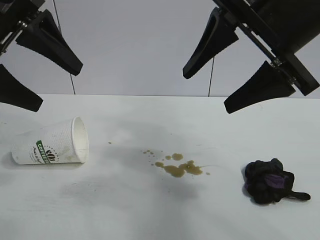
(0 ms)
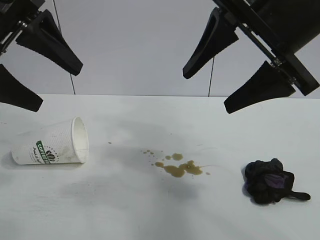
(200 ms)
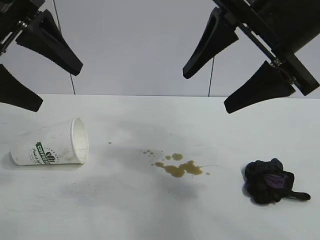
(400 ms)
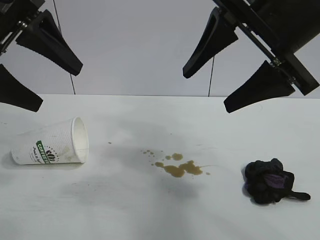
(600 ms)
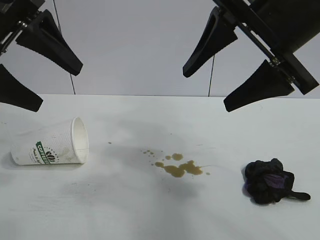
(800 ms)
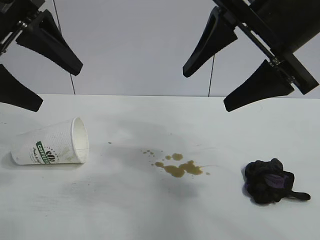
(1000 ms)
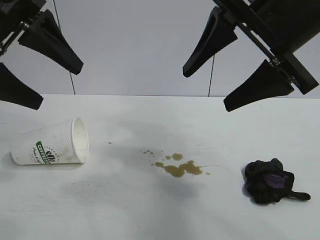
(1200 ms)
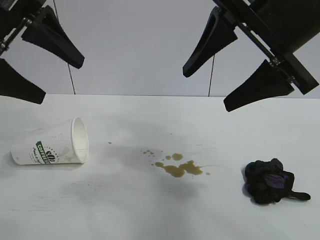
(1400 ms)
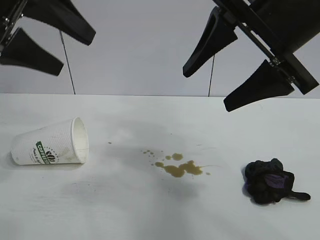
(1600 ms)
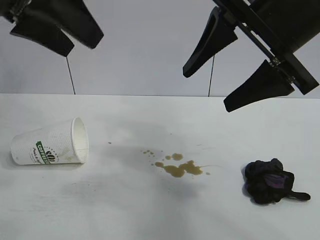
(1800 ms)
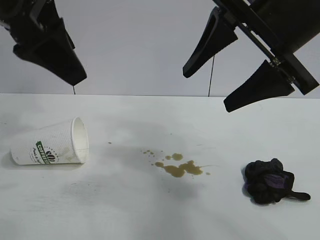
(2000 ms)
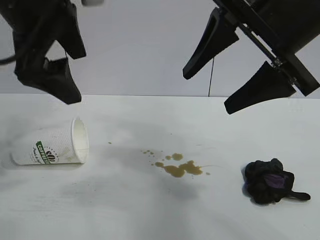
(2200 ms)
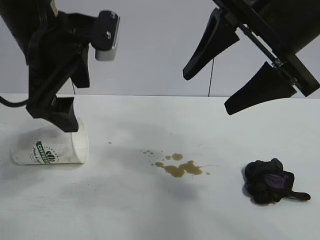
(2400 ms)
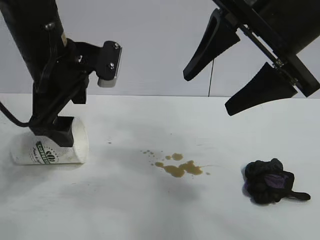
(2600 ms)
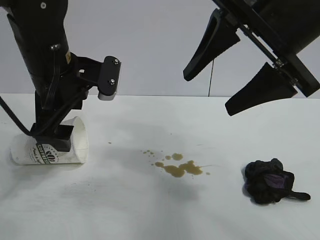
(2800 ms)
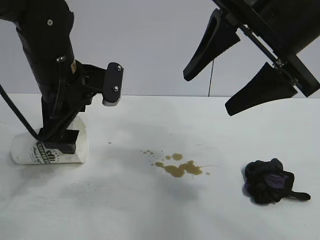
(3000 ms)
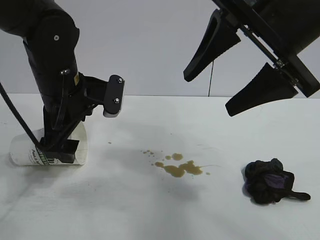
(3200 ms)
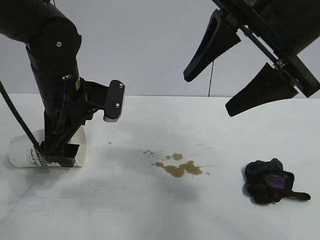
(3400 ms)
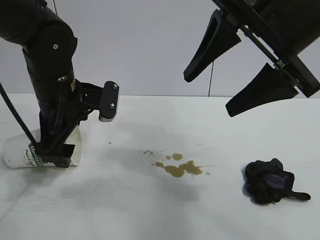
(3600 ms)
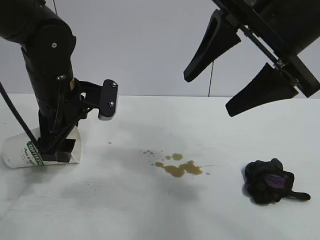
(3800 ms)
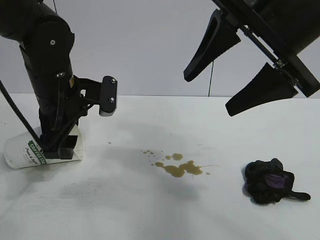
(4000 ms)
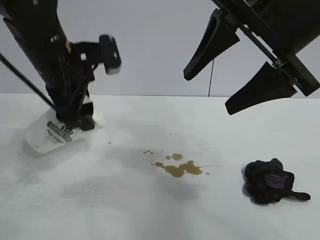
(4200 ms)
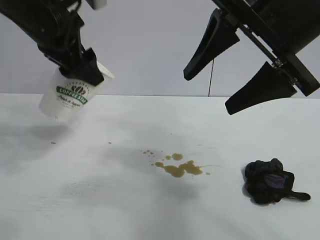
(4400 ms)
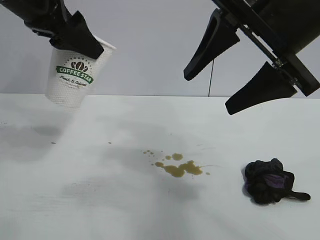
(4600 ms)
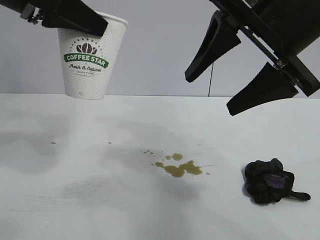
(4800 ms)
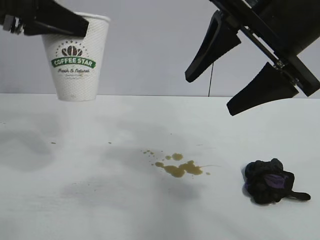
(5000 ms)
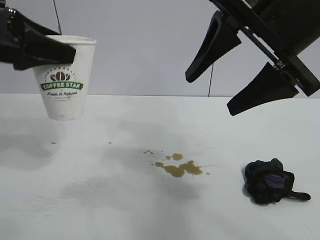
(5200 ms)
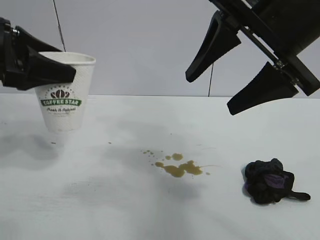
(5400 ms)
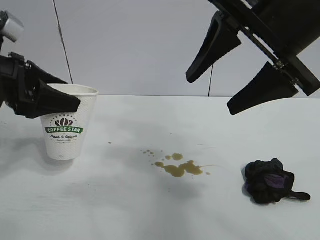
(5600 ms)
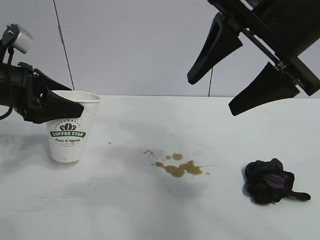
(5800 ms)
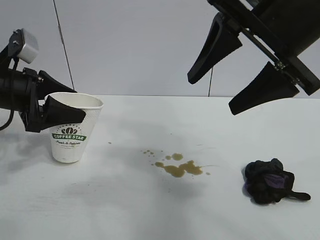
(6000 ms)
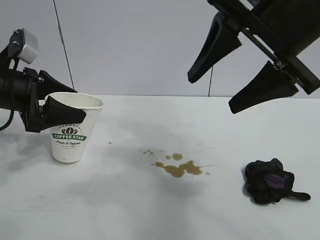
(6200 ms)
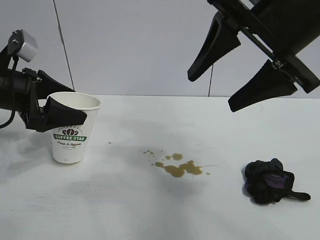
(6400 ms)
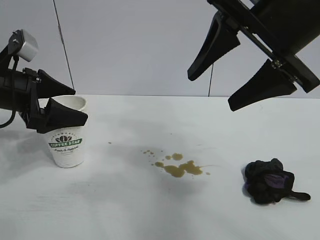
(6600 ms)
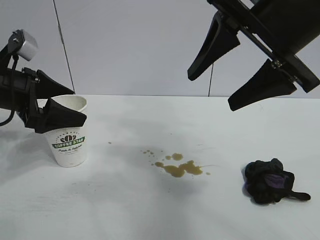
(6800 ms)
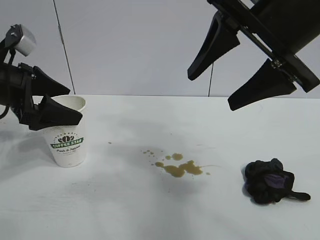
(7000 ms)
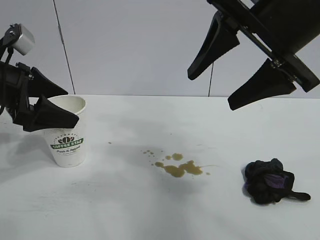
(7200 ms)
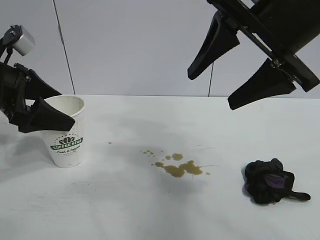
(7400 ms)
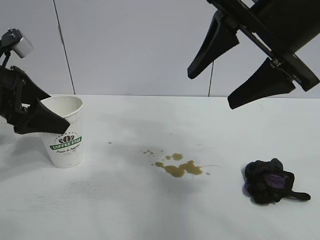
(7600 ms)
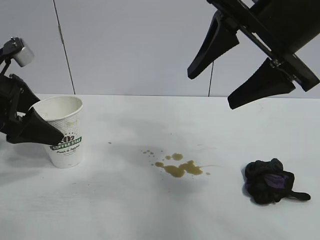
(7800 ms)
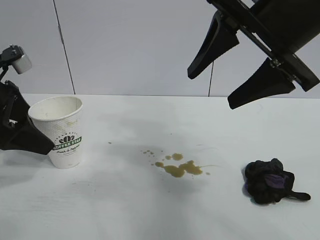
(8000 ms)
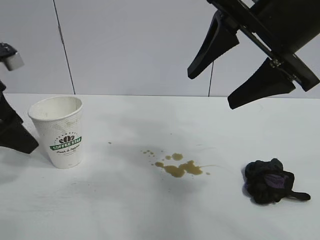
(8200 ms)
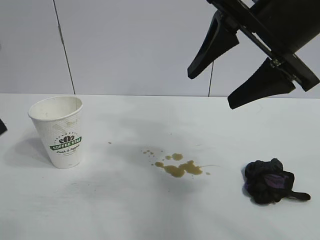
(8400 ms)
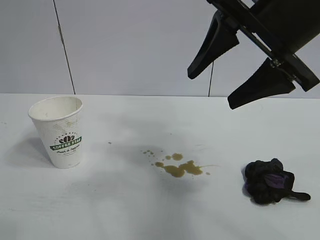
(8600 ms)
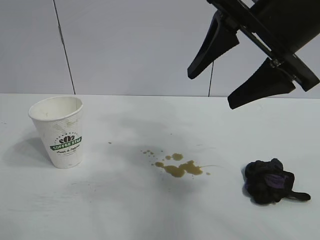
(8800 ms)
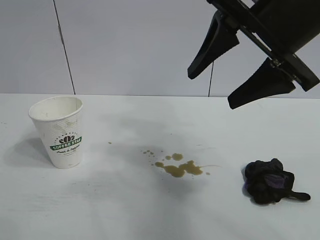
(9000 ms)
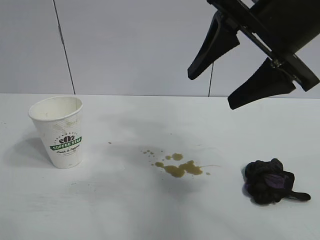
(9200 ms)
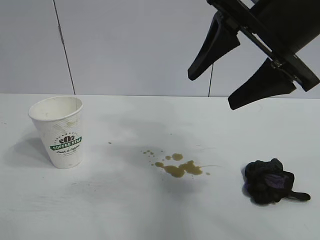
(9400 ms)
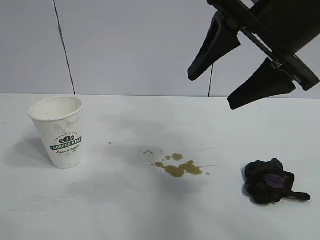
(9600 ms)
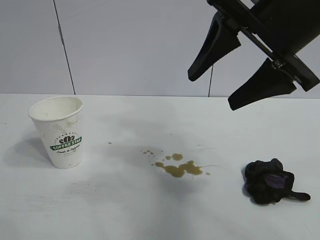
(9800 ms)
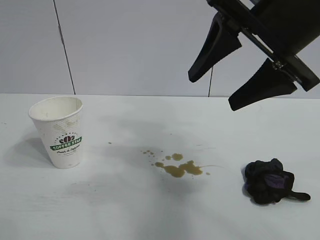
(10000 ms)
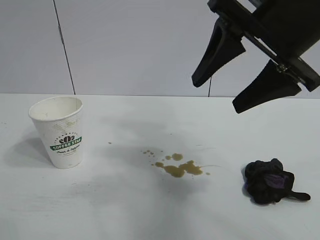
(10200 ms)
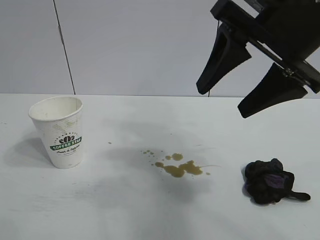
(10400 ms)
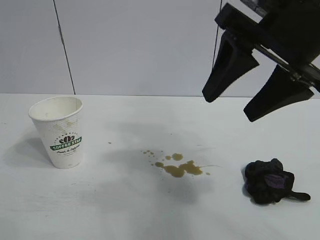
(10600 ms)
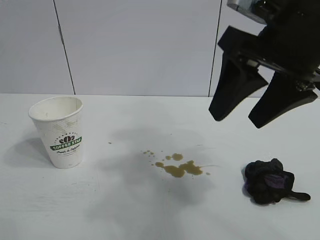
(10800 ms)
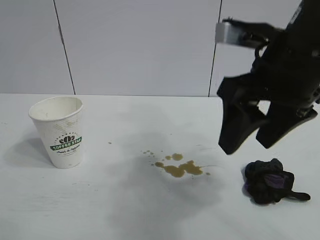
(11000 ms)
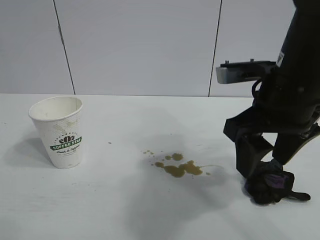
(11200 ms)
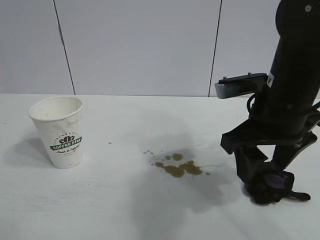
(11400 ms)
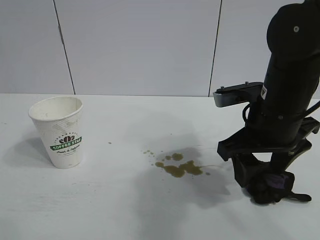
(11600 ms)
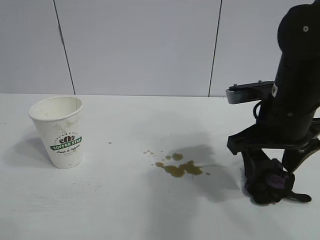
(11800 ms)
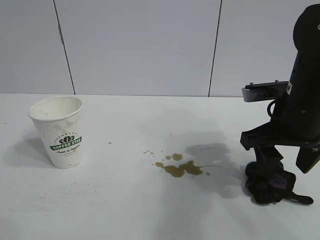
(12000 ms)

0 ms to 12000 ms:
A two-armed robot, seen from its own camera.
Task of the whole recording: the left gripper pick up the fallen cup and place it upright, the right gripper grasp the black rag and wipe the stain on the table, the right gripper put the black rag back in its original position.
Step, 600 ms to 3800 ms: Grasp the paper cup with left gripper.
Step, 4000 ms to 6600 ms: Stand the paper cup upright with left gripper.

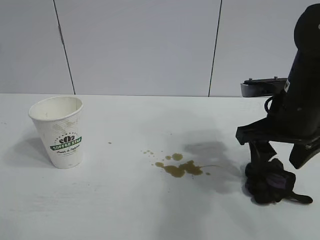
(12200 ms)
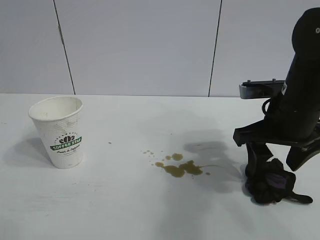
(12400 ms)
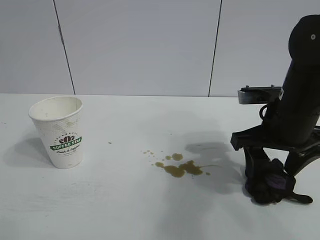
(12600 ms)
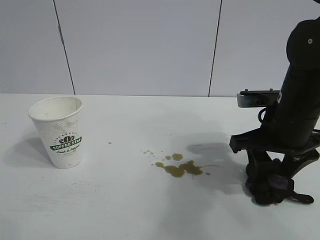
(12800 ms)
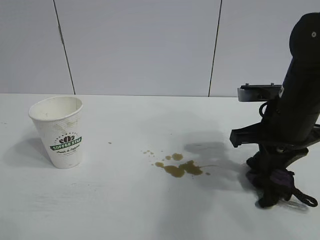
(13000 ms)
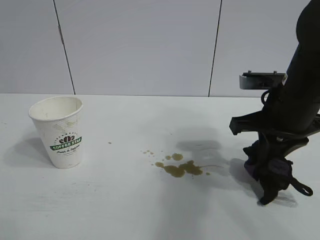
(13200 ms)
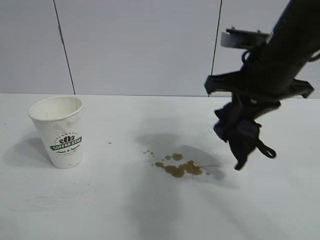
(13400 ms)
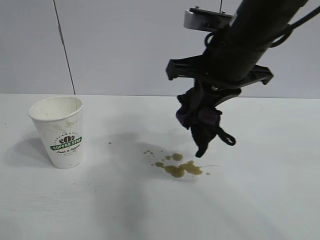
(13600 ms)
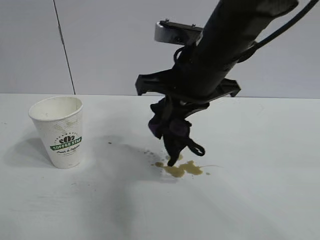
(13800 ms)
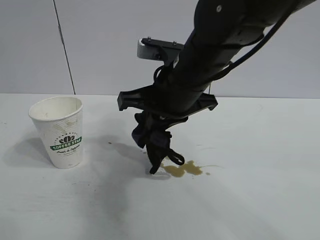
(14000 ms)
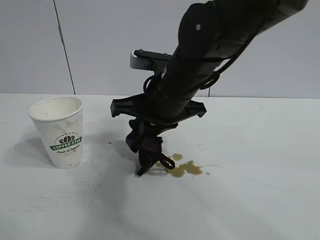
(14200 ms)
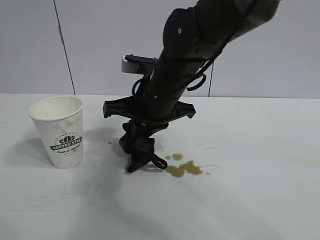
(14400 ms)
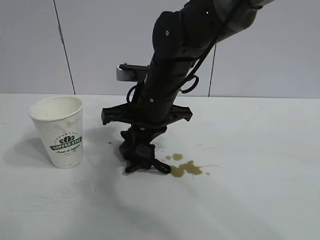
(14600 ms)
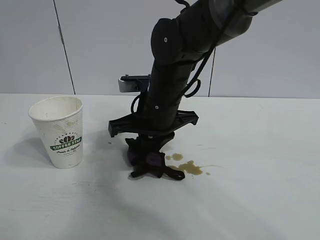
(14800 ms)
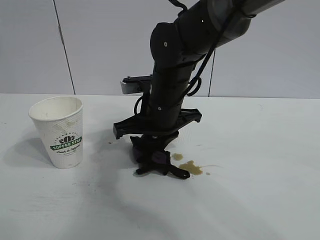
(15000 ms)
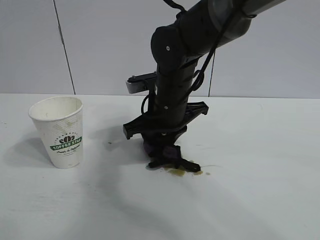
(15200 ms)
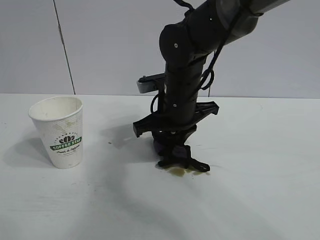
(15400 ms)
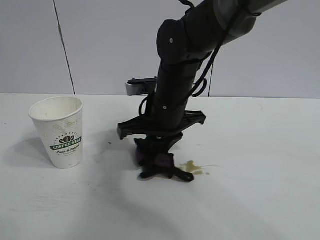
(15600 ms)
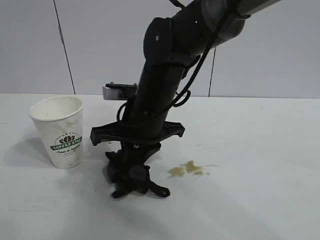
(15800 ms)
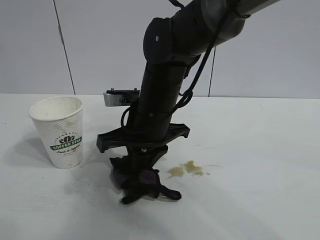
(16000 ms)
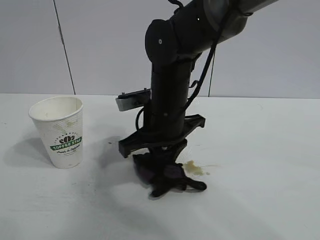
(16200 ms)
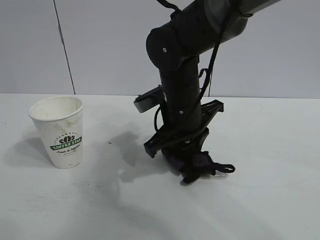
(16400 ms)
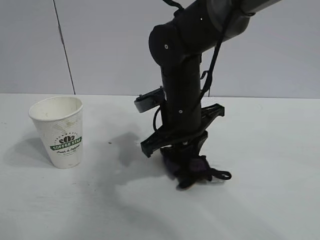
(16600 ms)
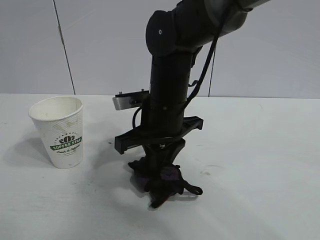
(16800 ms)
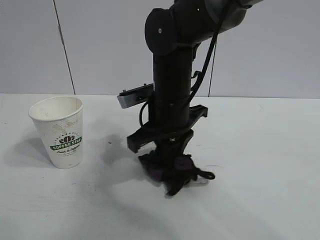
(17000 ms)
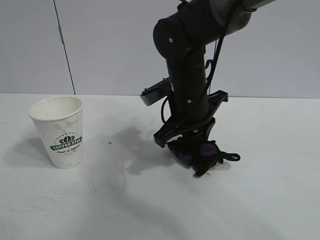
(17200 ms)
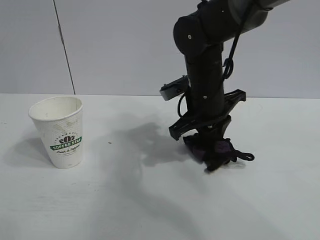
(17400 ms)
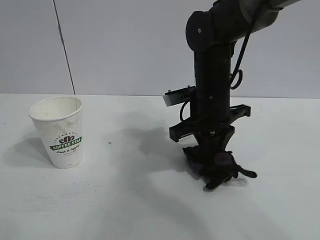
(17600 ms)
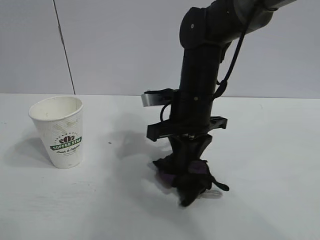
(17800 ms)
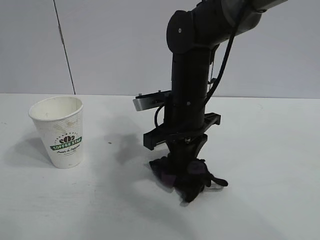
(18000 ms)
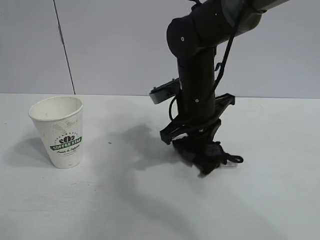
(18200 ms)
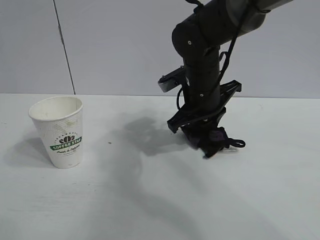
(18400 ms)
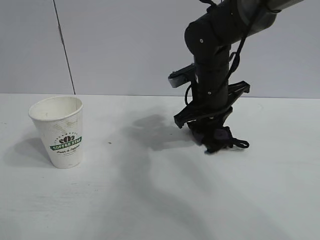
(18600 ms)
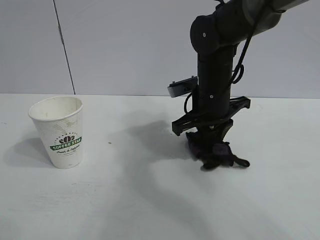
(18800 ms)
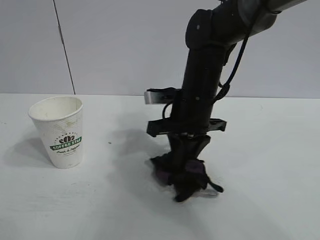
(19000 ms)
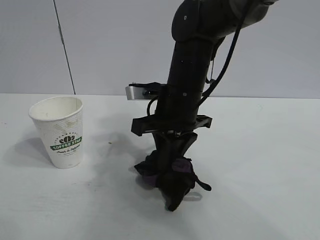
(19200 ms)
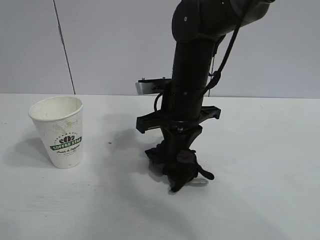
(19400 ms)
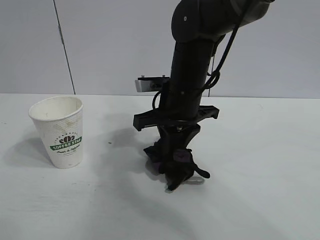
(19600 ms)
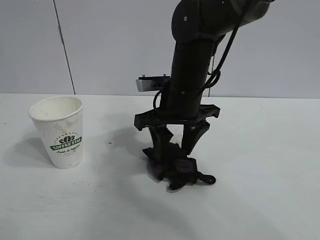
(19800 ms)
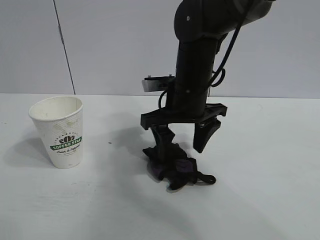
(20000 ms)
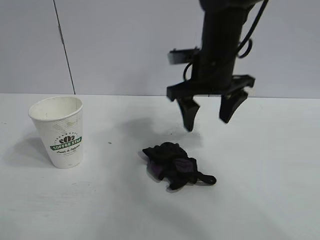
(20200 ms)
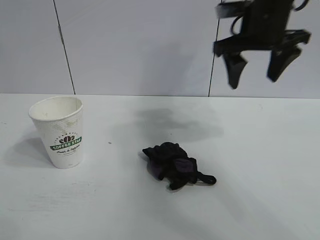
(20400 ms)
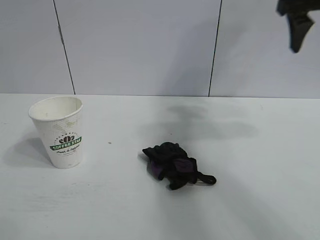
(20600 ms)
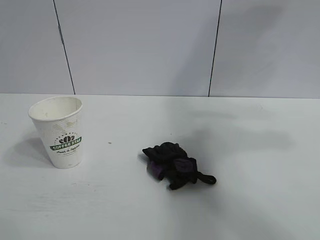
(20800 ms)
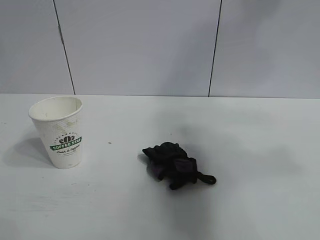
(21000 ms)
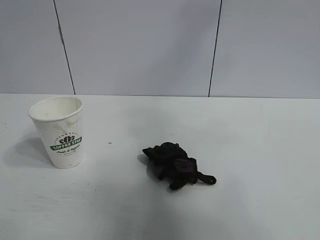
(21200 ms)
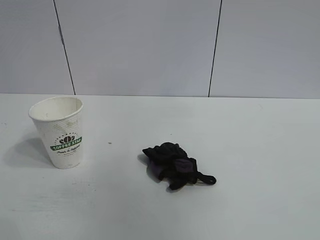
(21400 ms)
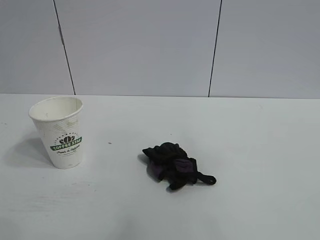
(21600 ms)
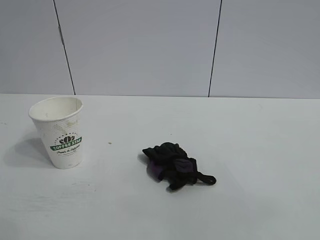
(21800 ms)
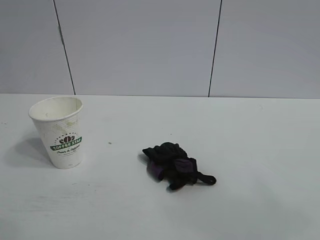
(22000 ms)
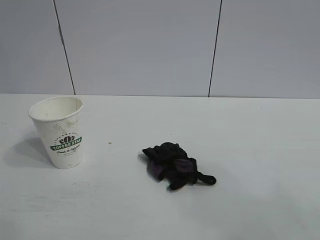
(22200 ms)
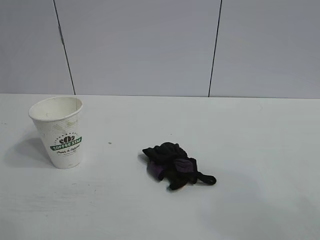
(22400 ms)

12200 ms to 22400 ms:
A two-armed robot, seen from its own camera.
Task of the whole recording: the left gripper pick up the fallen cup and place it upright, the right gripper grasp the black rag and wipe the stain on the table, the right gripper put the black rag back in its original position.
Step, 13000 ms to 18800 ms: Wipe the stains off the table with the rag with right gripper.
Step, 19200 ms to 19600 ms: Place the rag on the table with right gripper.
